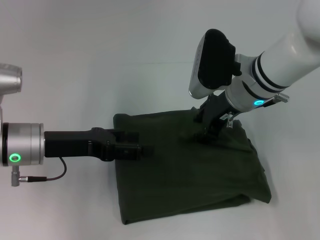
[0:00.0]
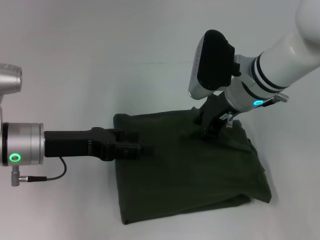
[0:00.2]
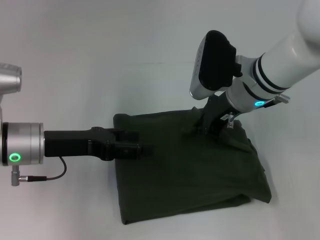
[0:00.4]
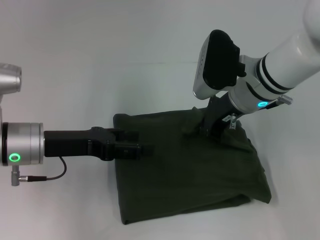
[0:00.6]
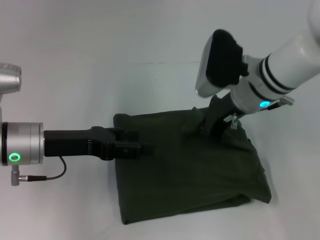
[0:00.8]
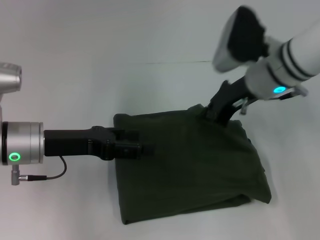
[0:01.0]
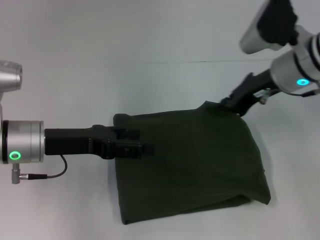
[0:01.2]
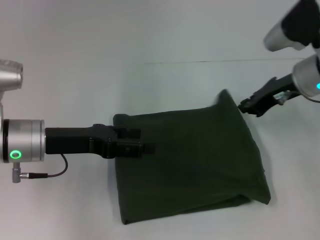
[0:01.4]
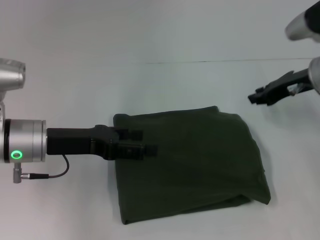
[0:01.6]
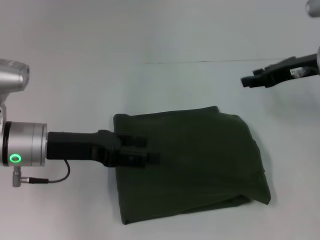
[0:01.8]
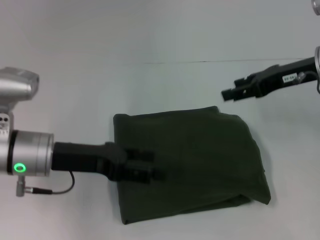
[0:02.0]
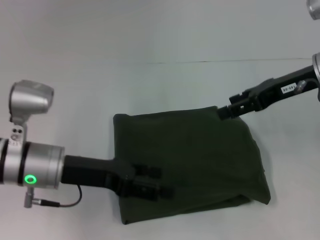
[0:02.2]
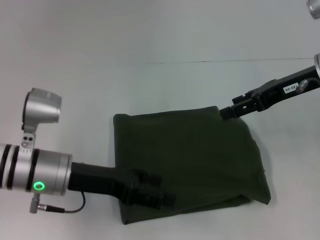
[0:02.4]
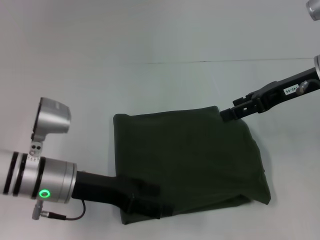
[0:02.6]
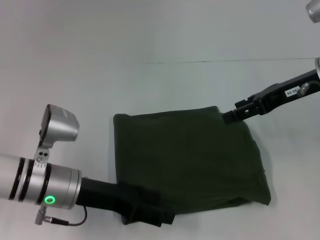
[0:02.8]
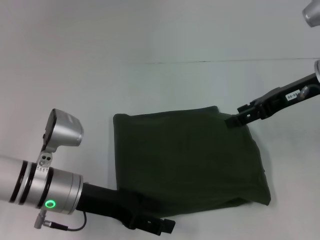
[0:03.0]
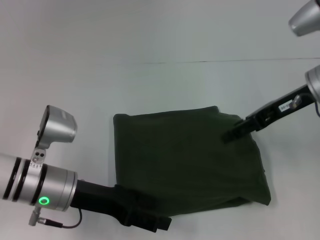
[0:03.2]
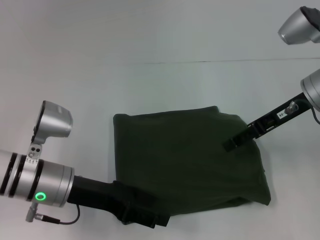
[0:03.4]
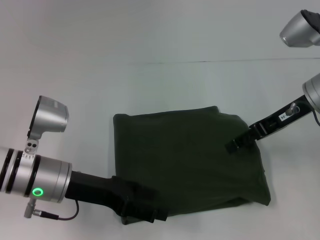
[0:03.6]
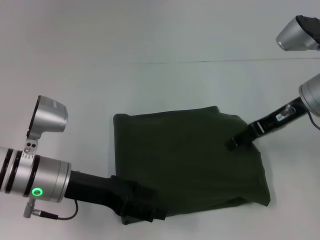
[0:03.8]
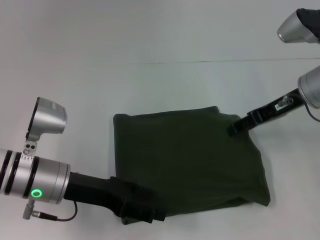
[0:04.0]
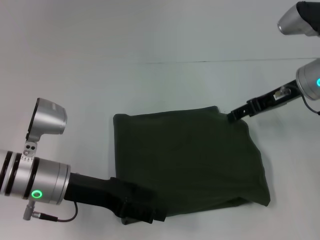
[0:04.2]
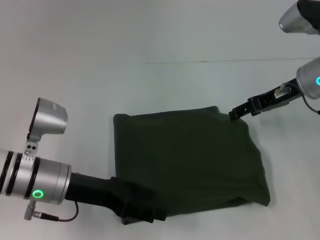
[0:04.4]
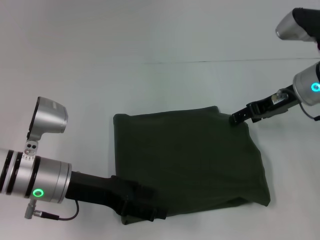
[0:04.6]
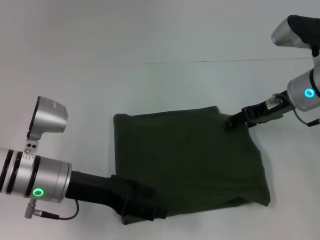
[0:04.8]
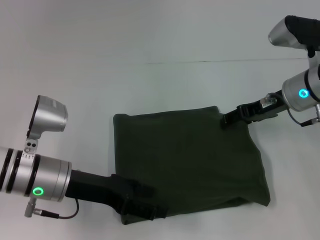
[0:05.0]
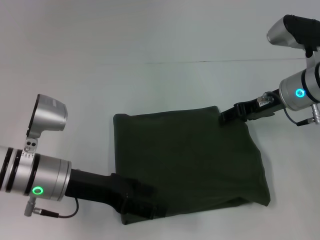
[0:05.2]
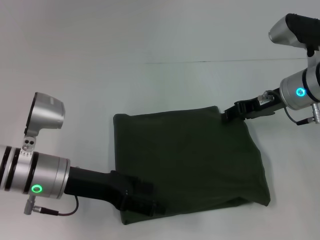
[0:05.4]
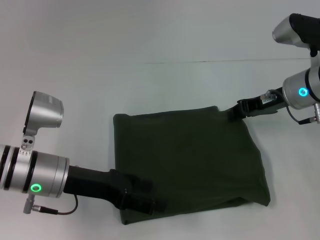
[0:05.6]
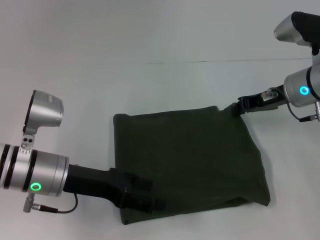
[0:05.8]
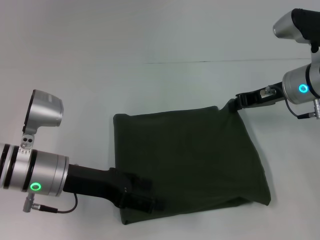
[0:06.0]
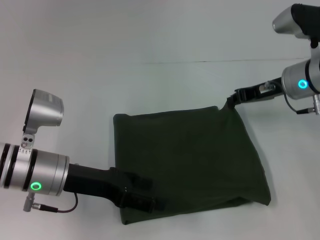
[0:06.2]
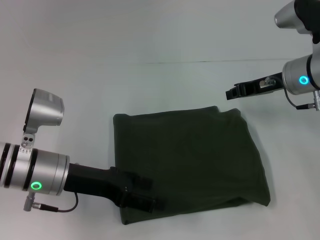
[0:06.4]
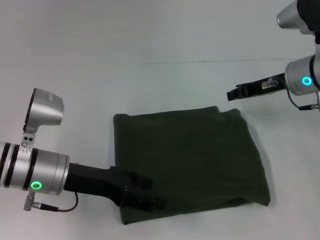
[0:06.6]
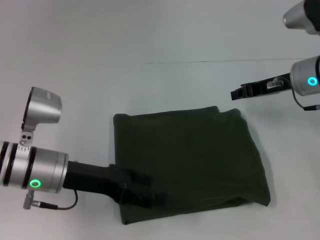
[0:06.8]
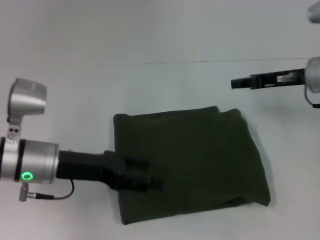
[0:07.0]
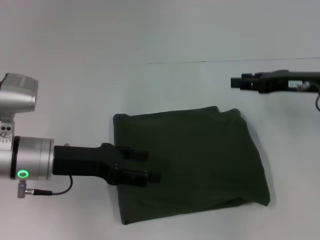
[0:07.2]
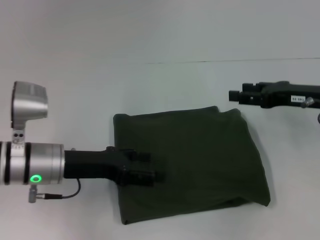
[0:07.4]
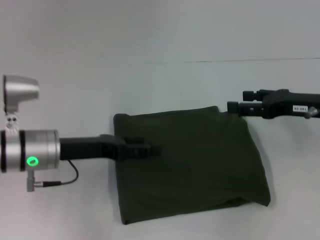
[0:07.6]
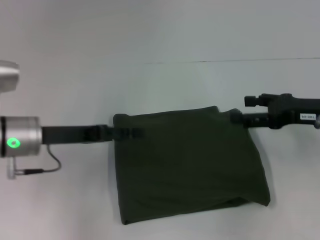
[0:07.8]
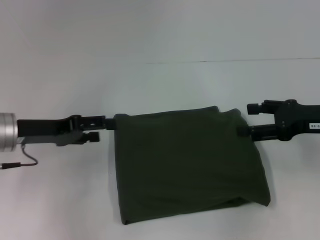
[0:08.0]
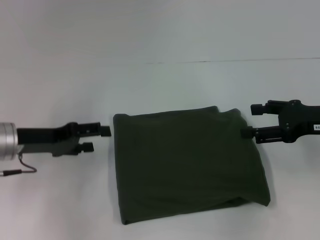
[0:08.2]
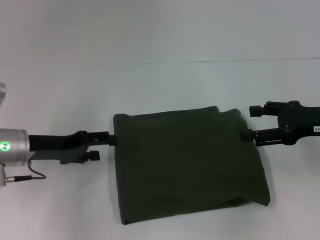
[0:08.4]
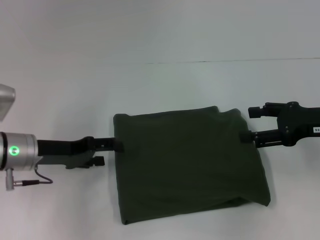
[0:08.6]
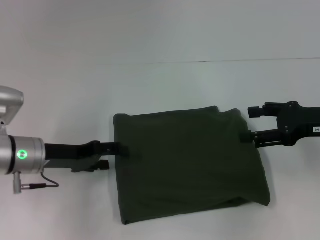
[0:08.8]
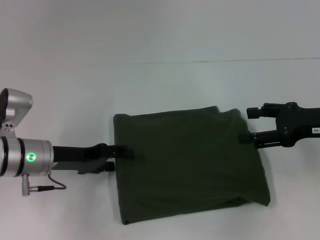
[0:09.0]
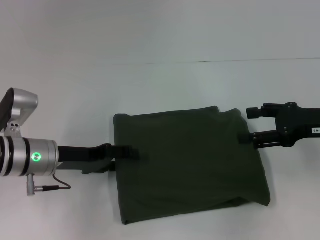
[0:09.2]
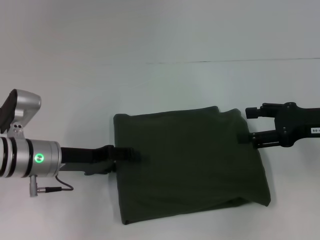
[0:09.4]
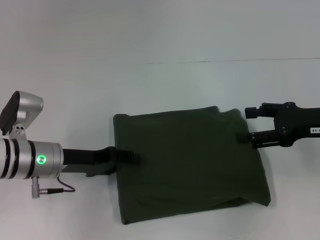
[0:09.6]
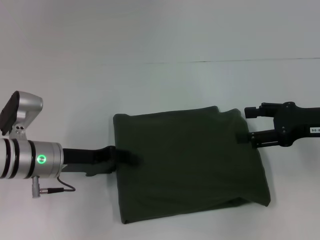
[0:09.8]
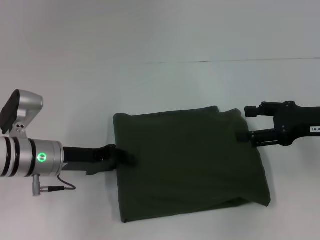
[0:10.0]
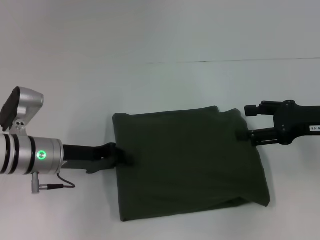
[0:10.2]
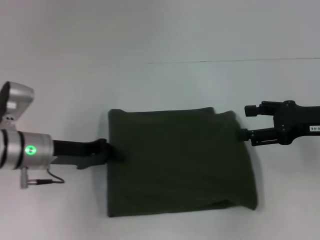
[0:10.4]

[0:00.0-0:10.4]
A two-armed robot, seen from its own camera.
0:00.0 to 0:01.4: The right gripper goes approximately 10 cm to the right, and closes its fingers.
0:01.4 to 0:03.0: The left gripper moves downward, approximately 5 cm. The right gripper opens its fingers.
0:04.4 to 0:06.0: The right gripper closes its fingers.
0:06.0 to 0:07.4: The right gripper heads backward and to the right, covering some 5 cm, and opens its fingers.
0:07.4 to 0:09.0: The right gripper opens.
0:09.0 to 0:10.4: The left gripper closes its fingers.

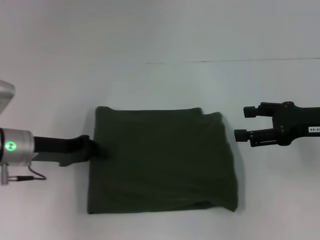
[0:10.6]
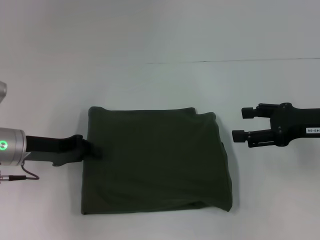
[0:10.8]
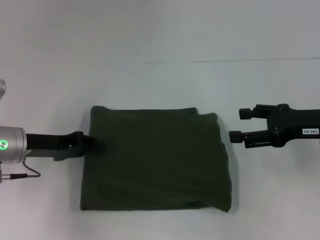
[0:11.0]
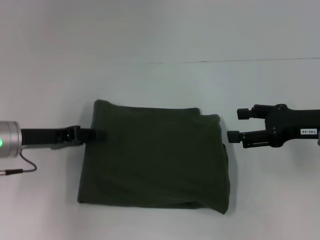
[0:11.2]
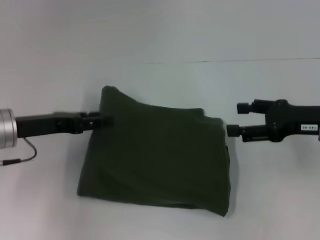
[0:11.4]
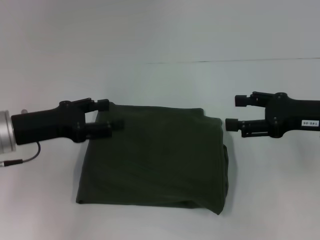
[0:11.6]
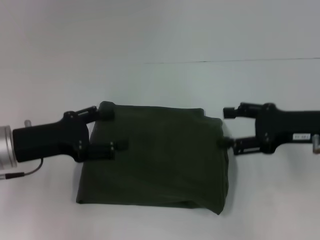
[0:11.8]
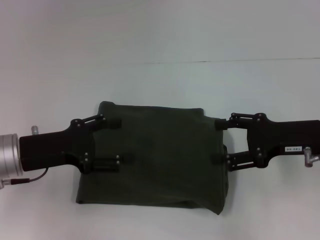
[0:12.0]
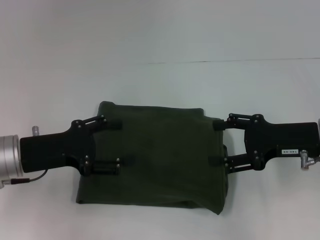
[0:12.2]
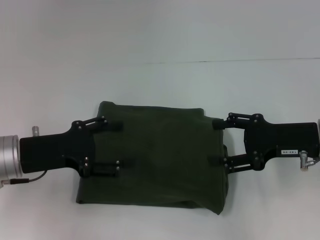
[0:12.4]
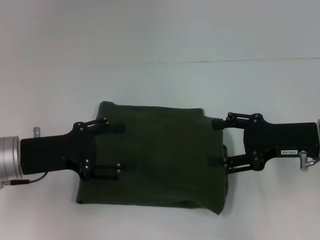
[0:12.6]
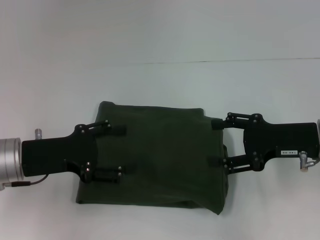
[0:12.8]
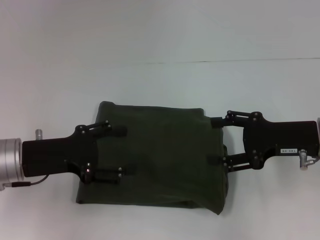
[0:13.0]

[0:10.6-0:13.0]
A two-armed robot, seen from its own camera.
0:10.6 to 0:11.8: The left gripper moves about 5 cm, and opens its fingers.
0:11.8 to 0:13.0: The grippers stay close to where they were, moving slightly.

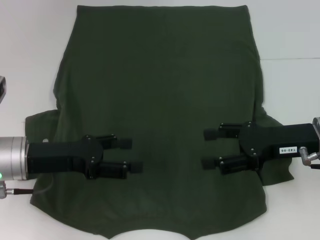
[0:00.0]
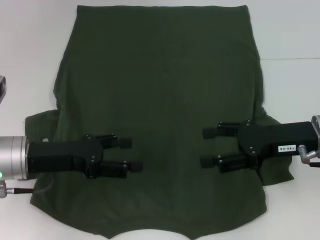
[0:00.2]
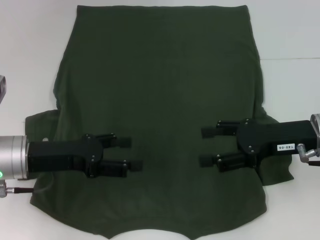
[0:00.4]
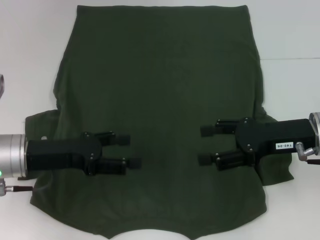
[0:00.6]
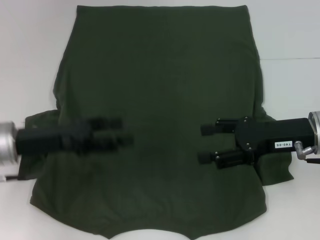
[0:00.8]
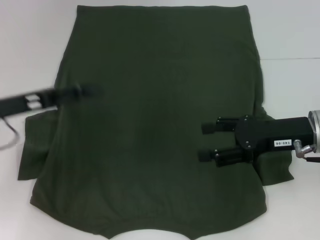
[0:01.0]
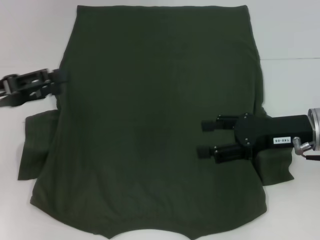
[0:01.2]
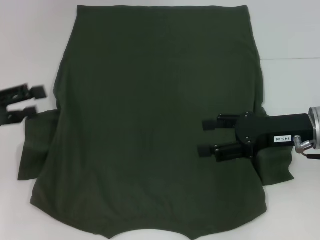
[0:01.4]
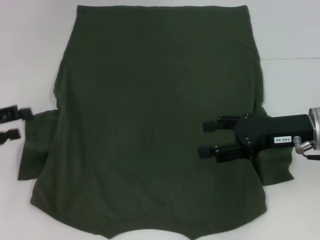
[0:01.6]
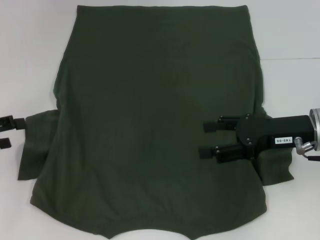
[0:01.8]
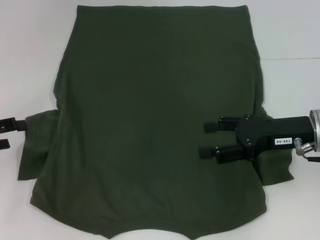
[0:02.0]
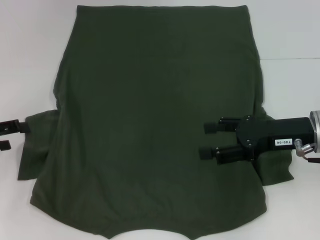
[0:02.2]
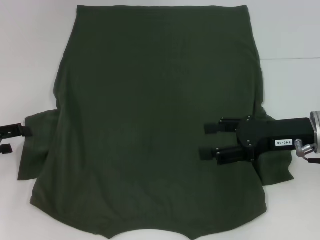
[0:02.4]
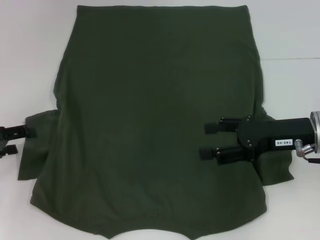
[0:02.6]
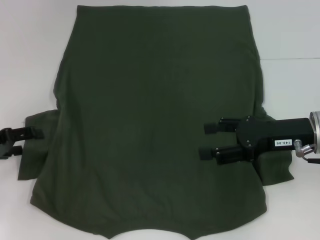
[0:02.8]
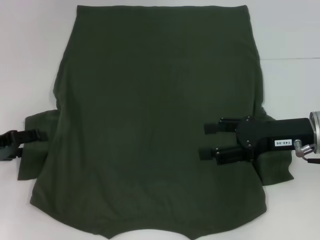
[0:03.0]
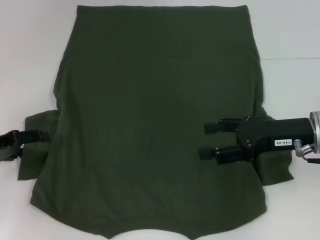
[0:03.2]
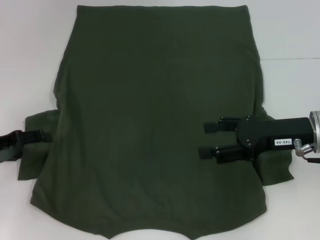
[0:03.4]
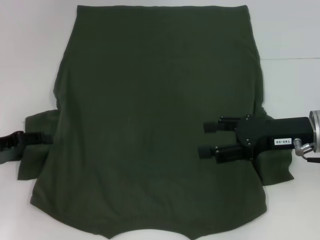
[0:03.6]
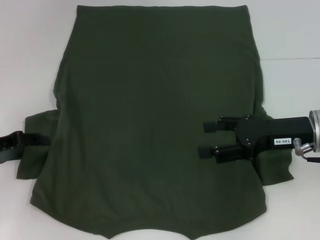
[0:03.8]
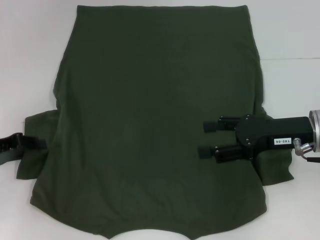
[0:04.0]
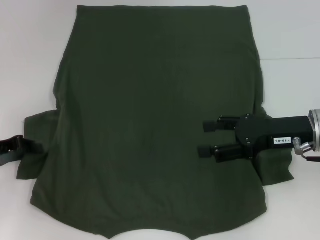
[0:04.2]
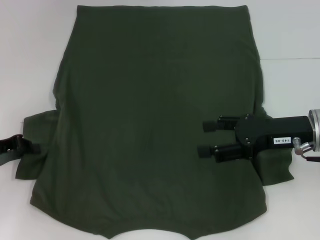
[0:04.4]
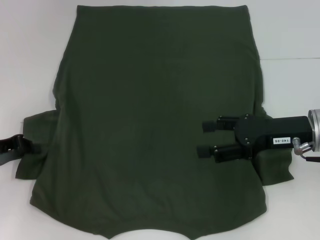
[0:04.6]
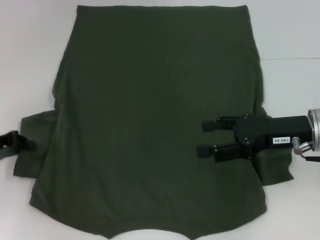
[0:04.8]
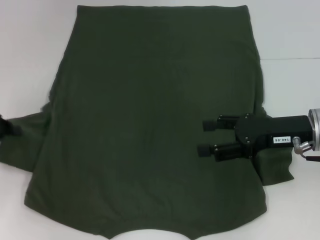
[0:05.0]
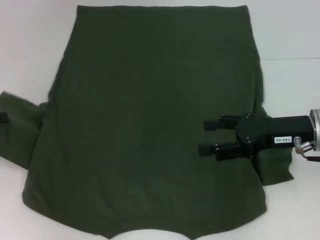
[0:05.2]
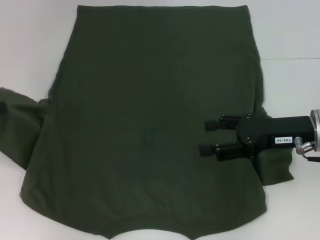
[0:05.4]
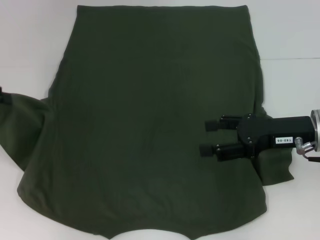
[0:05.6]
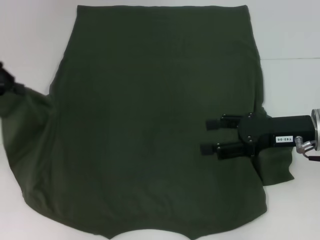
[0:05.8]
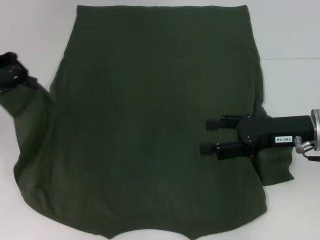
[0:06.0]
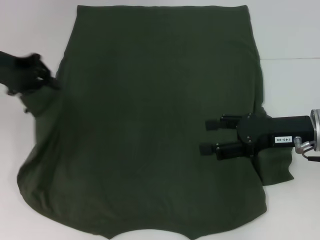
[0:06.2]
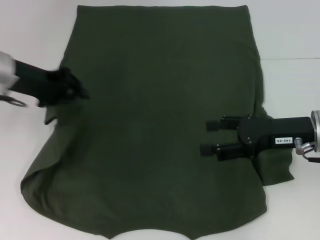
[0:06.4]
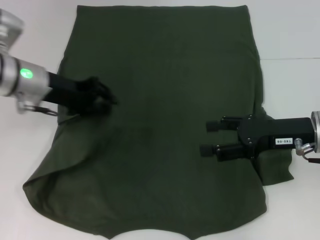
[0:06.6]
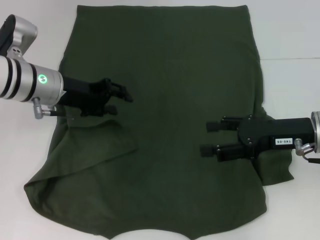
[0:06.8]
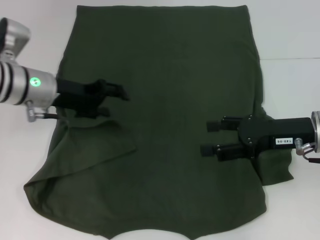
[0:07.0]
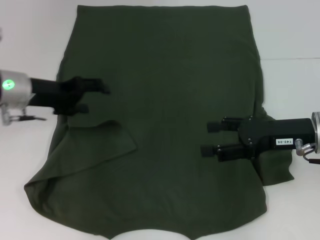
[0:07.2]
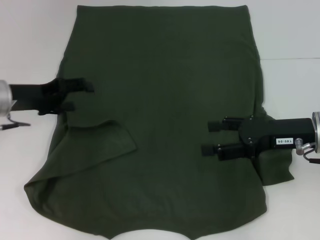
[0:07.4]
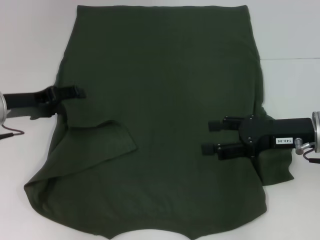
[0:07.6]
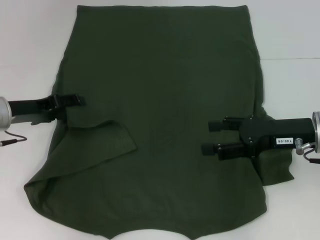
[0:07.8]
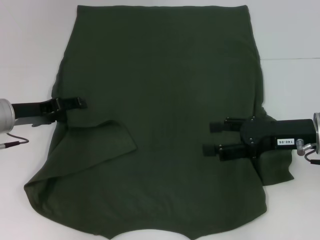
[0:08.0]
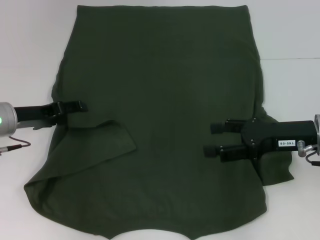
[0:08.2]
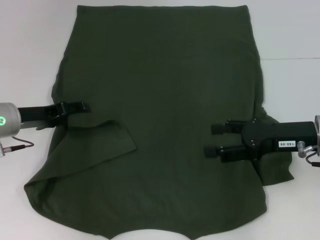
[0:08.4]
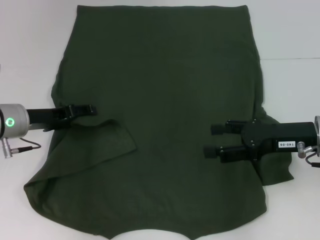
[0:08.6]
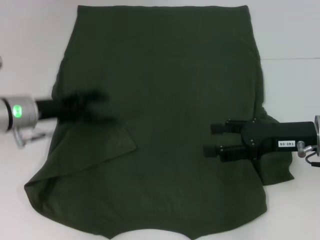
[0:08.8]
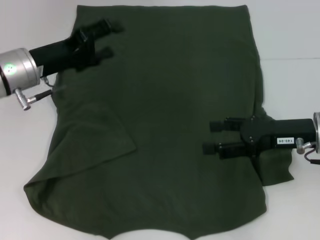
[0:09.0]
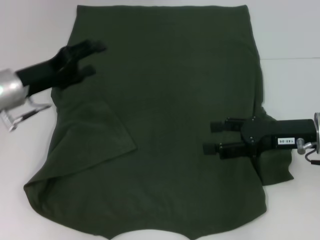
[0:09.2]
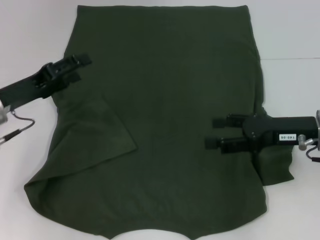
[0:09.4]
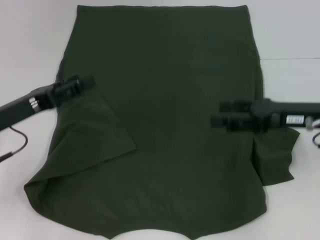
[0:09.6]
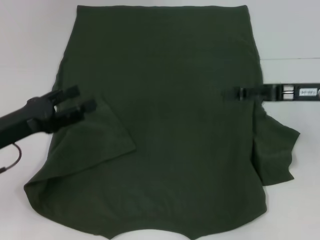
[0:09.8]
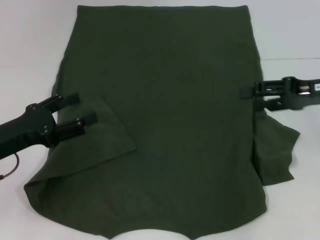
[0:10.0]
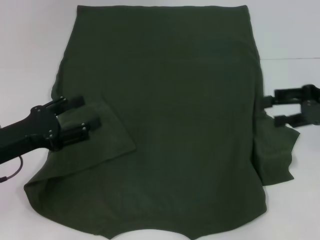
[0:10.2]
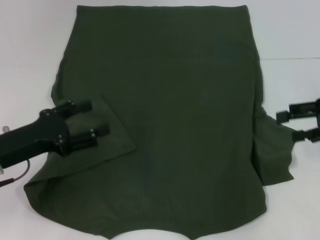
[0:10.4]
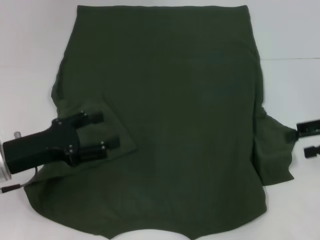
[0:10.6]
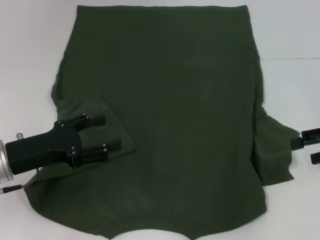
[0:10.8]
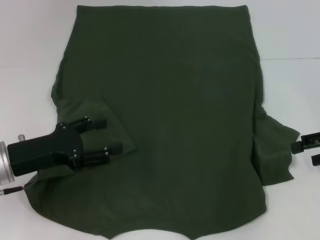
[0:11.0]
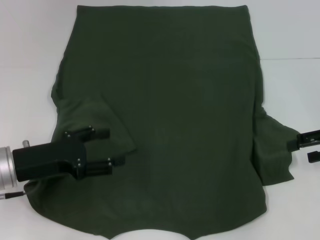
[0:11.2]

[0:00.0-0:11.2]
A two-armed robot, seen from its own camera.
Step, 0:00.0 to 0:09.4: Fold the bottom left sleeve with your left hand.
0:00.0 to 0:01.6: The left gripper shifts about 15 cm to the left.
0:01.6 to 0:03.2: The left gripper shifts by roughly 5 cm.
0:03.2 to 0:04.8: The left gripper closes.
0:04.8 to 0:06.4: The left gripper is displaced upward, to the right and forward by approximately 15 cm.
0:06.4 to 0:08.0: The left gripper goes roughly 10 cm downward, goes to the right and returns, some 5 cm each way, and opens up.
0:08.0 to 0:09.6: The left gripper heads backward, covering roughly 5 cm.
0:09.6 to 0:11.2: The right gripper shifts roughly 10 cm to the right.
